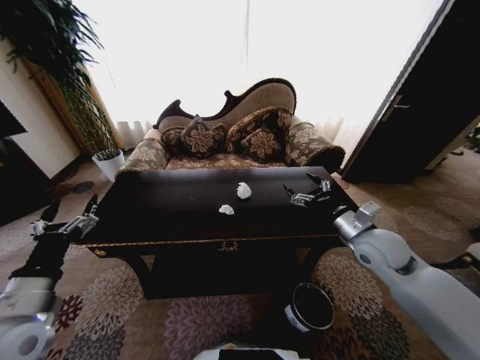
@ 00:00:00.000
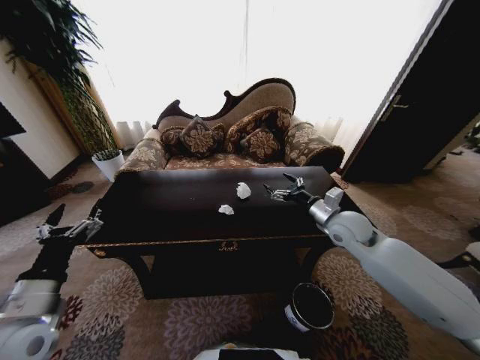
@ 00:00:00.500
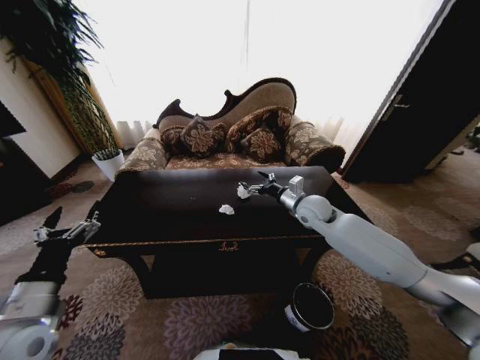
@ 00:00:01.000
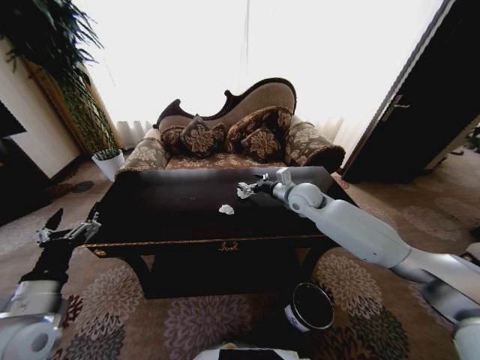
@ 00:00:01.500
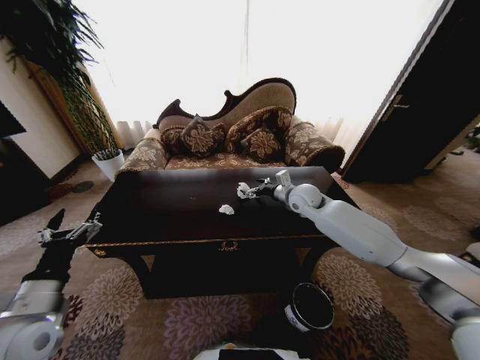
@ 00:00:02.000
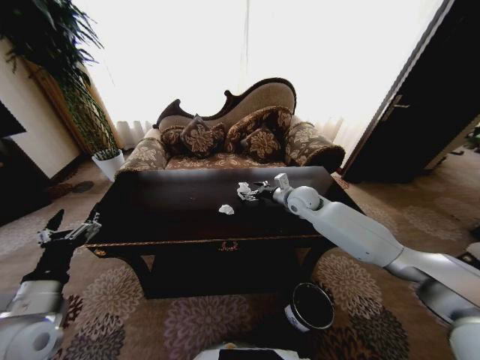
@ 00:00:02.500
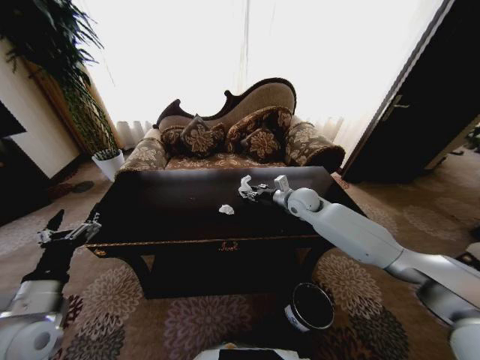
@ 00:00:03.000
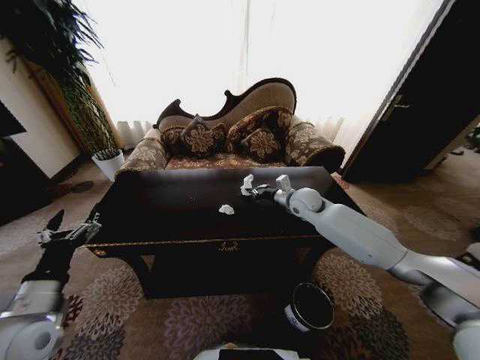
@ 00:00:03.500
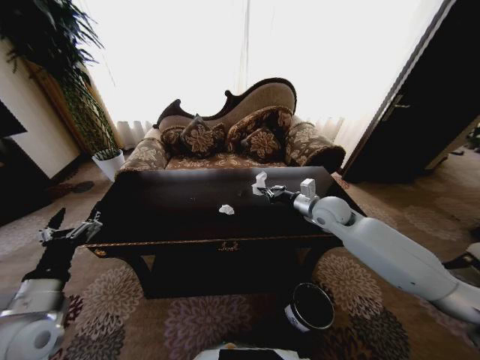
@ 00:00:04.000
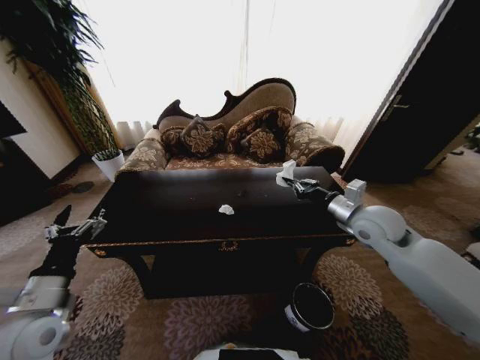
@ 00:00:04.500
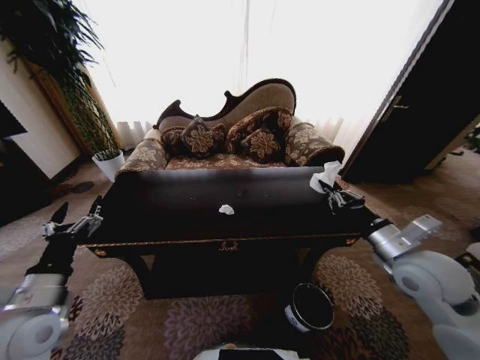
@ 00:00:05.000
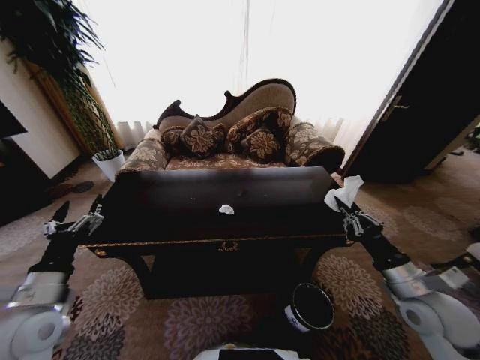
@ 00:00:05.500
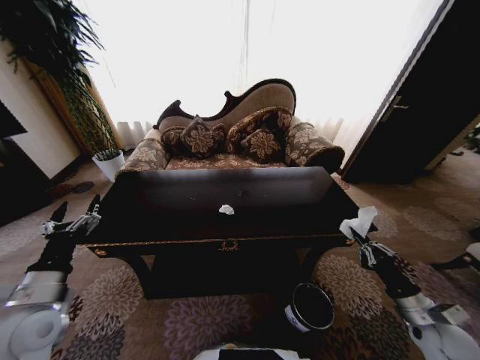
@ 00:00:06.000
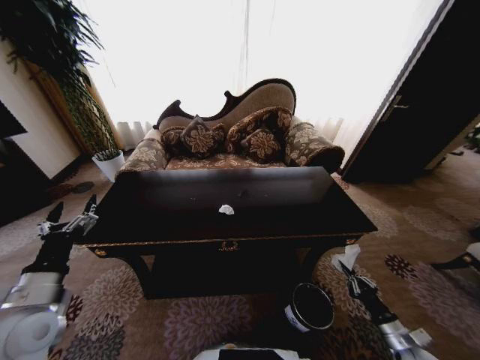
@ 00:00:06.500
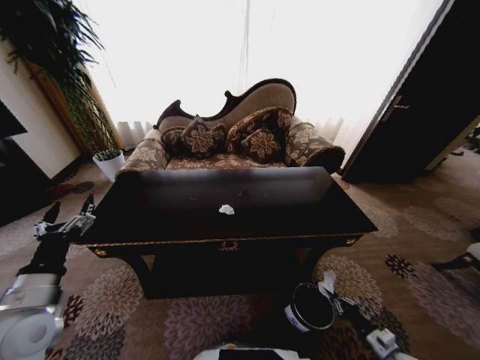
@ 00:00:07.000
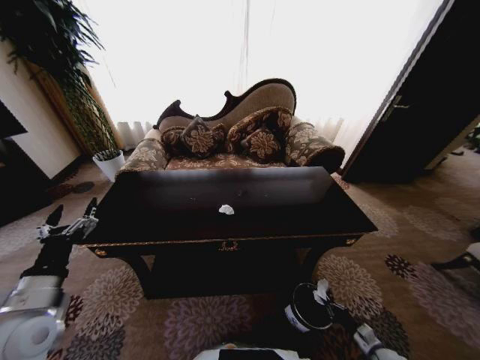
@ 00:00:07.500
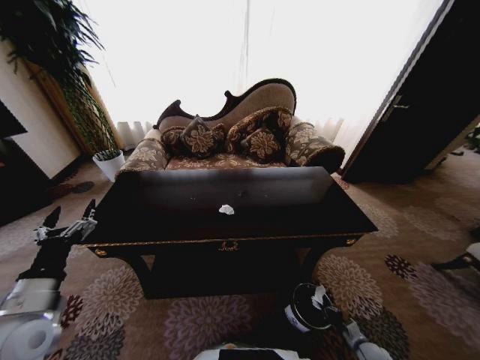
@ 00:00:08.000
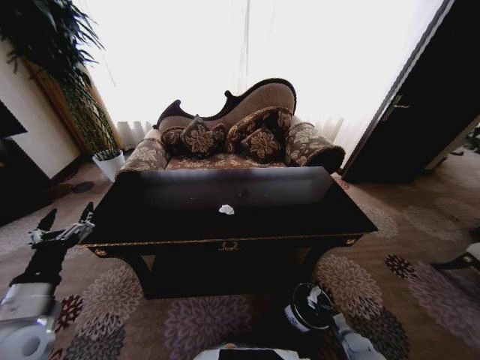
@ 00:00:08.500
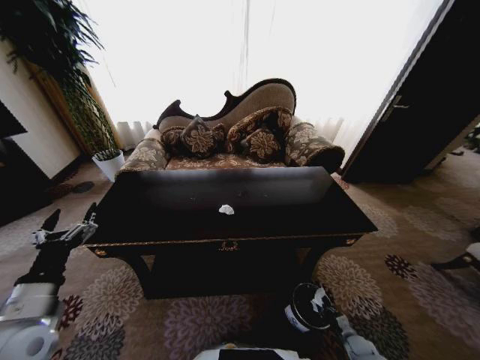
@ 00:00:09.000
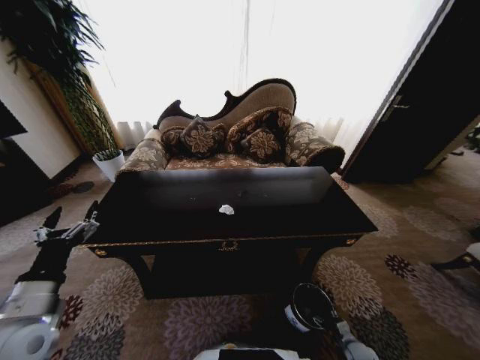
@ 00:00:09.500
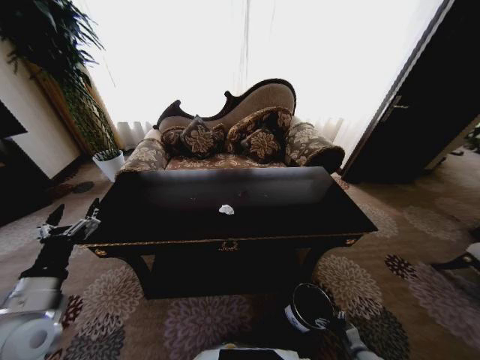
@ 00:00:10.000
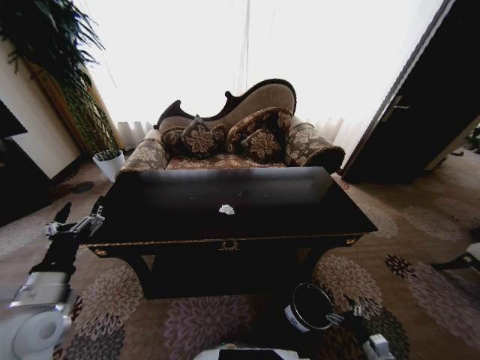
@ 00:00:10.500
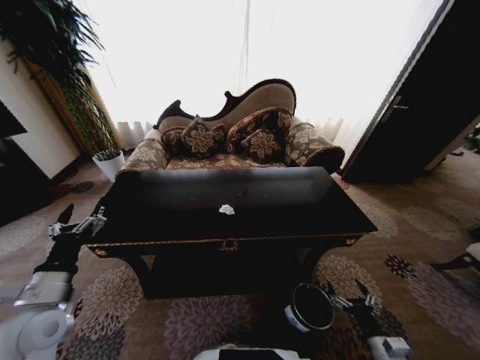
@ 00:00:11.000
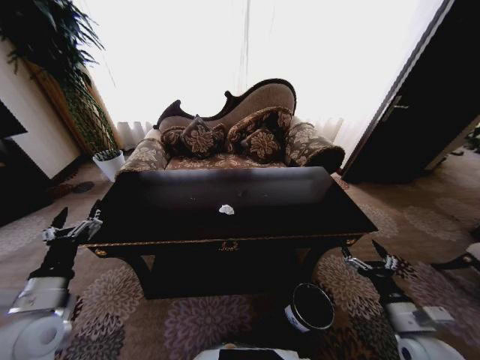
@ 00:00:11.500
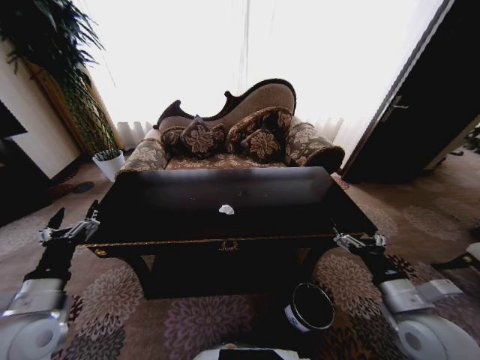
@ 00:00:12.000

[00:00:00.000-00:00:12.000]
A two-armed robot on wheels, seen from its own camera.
Task of the whole recording: Move to the front of the table and place the trash on the table into the trash bin.
00:00:00.000 to 00:00:02.000: The right gripper goes roughly 20 cm forward and to the left.
00:00:02.000 to 00:00:04.000: The right gripper moves backward and to the right, about 10 cm, and closes.
00:00:04.000 to 00:00:06.000: The right gripper moves backward, to the right and downward, about 35 cm.
00:00:06.000 to 00:00:08.000: The right gripper heads downward, covering some 30 cm.
00:00:10.000 to 00:00:12.000: The right gripper moves upward, roughly 40 cm.

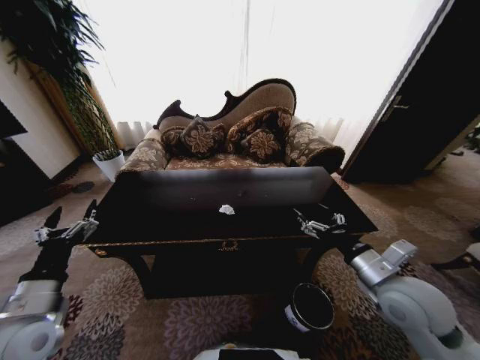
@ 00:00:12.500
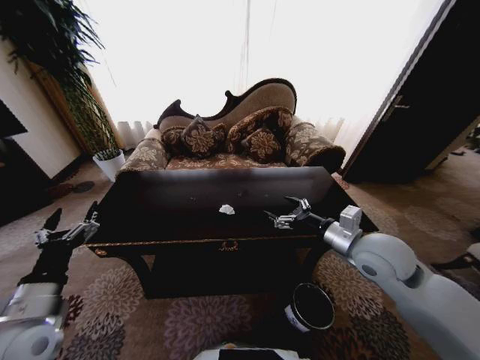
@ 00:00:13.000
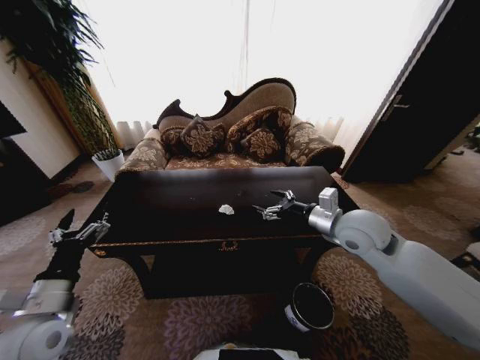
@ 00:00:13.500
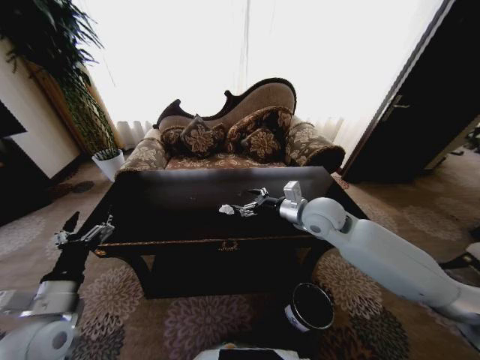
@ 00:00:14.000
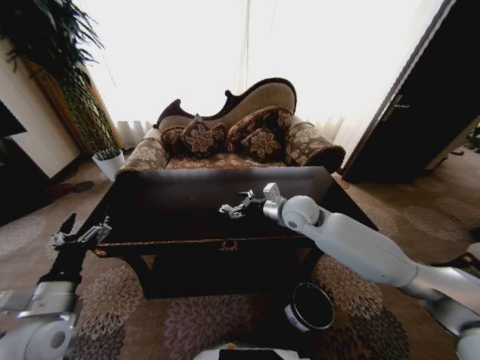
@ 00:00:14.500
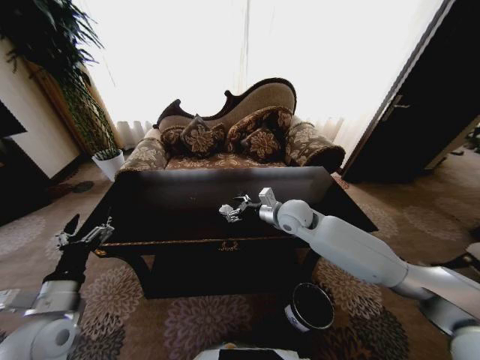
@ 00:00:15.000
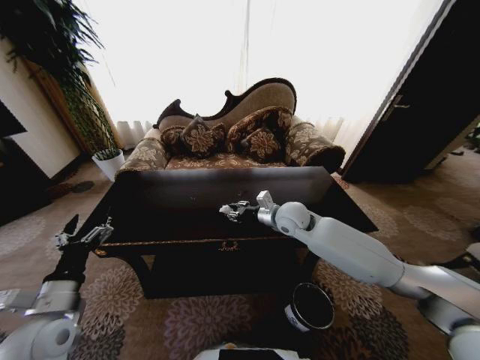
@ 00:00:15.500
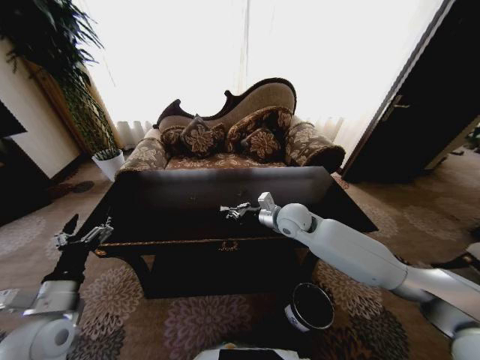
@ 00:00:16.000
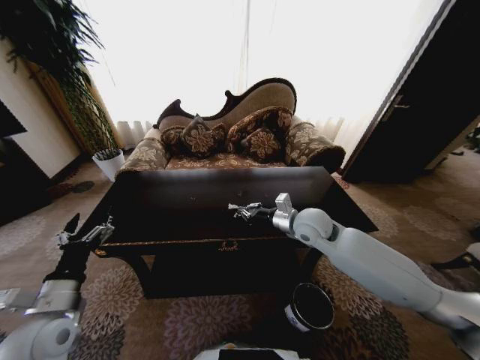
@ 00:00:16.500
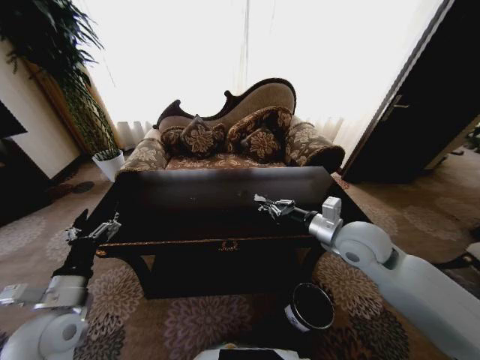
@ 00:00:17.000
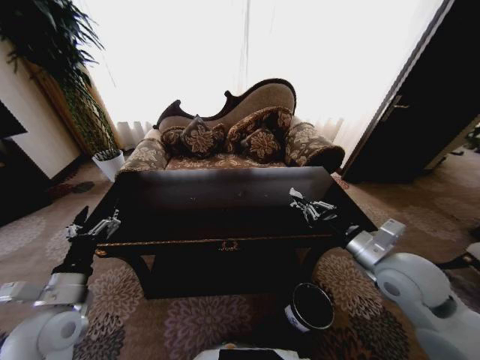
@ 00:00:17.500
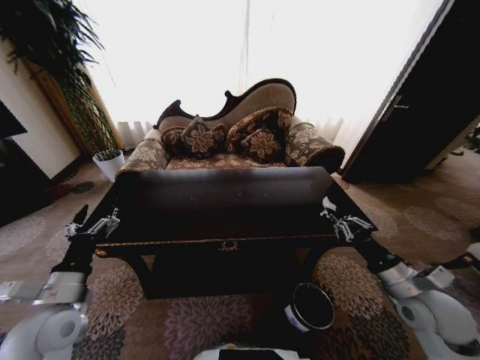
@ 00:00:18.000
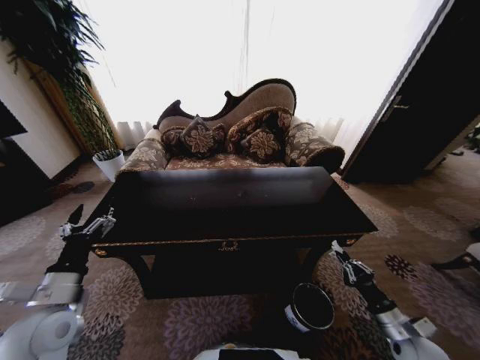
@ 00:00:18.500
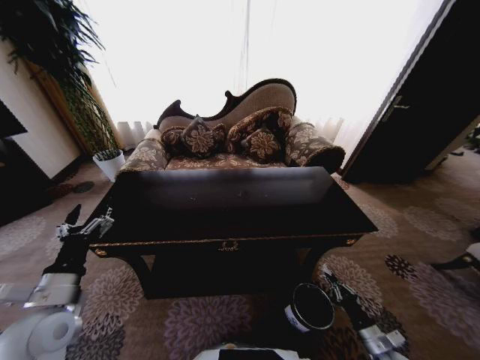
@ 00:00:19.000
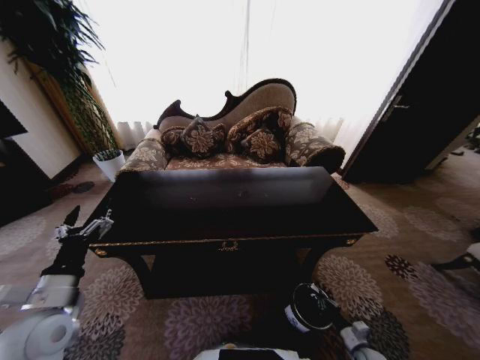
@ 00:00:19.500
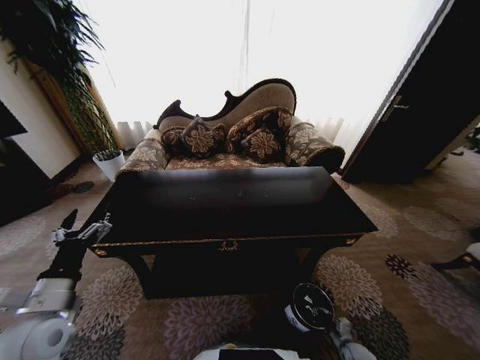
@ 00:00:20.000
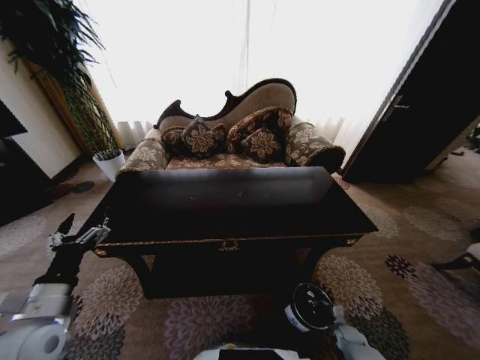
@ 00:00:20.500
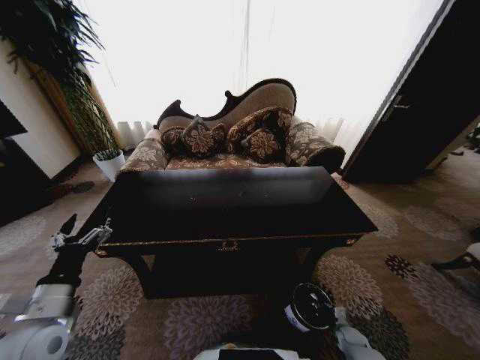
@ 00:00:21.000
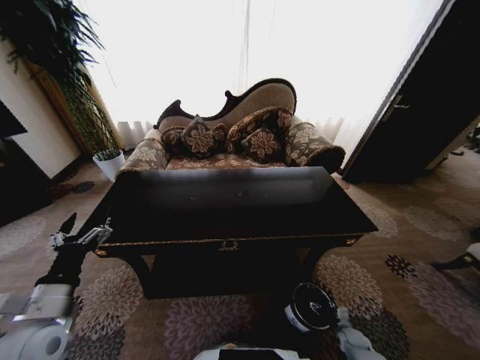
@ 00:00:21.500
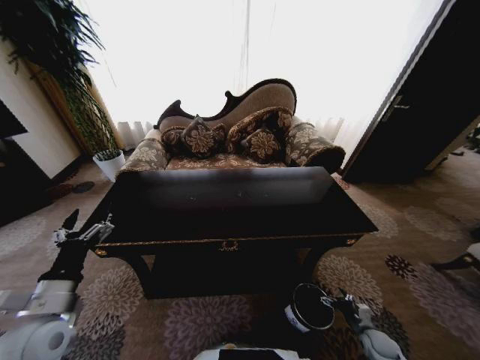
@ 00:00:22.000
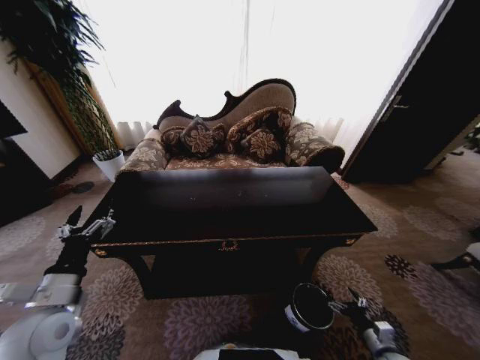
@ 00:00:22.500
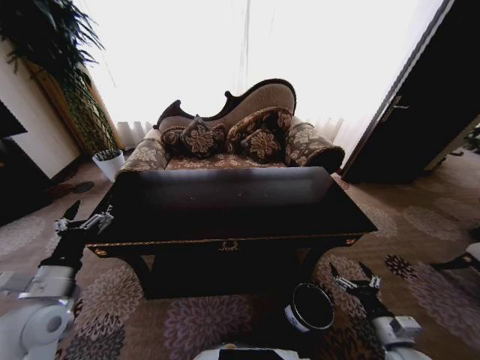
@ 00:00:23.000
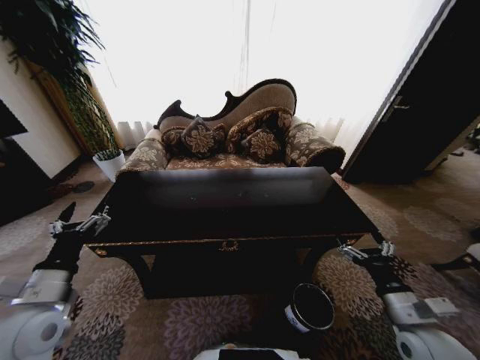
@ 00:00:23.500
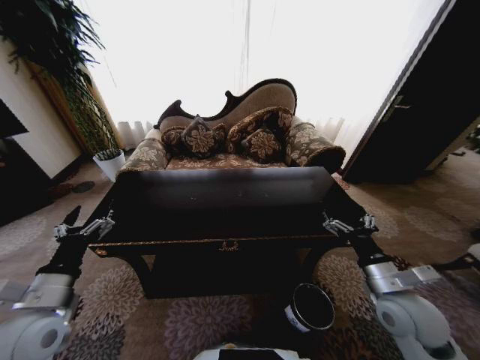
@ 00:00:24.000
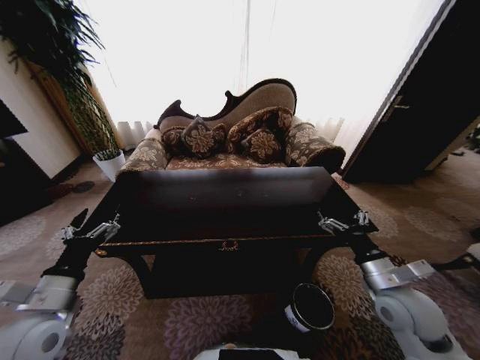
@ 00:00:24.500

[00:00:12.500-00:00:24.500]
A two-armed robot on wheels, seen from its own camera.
Task of the whole recording: Move to the front of the table and place the trash on the table into the trash bin.
00:00:12.500 to 00:00:14.500: The right gripper is displaced forward and to the left by some 25 cm.
00:00:14.500 to 00:00:16.500: The right gripper closes its fingers.
00:00:16.500 to 00:00:18.500: The right gripper is displaced backward, to the right and downward by approximately 40 cm.
00:00:18.500 to 00:00:20.500: The right gripper travels downward by approximately 25 cm.
00:00:20.500 to 00:00:22.500: The right gripper goes roughly 15 cm upward and backward, and opens its fingers.
00:00:22.500 to 00:00:24.500: The right gripper travels upward and to the left by about 30 cm.
